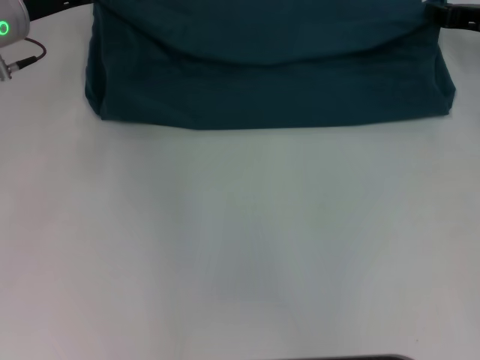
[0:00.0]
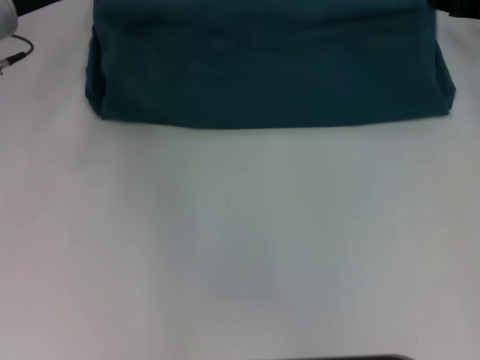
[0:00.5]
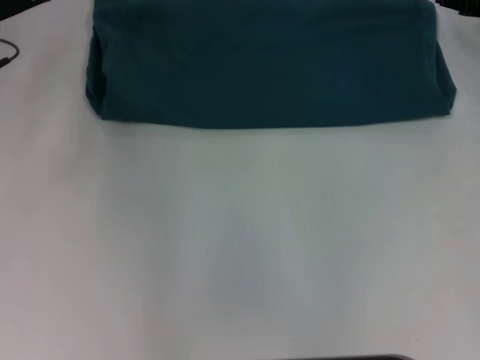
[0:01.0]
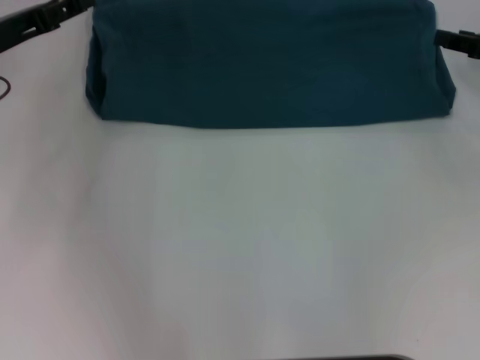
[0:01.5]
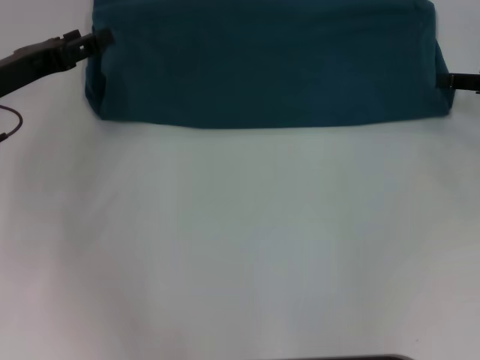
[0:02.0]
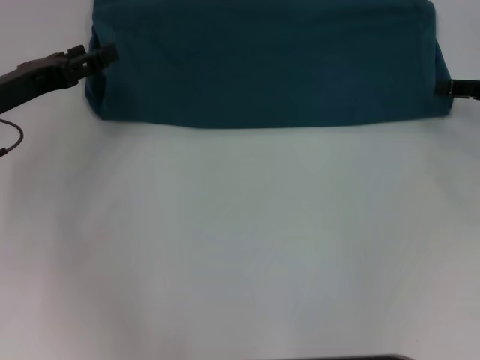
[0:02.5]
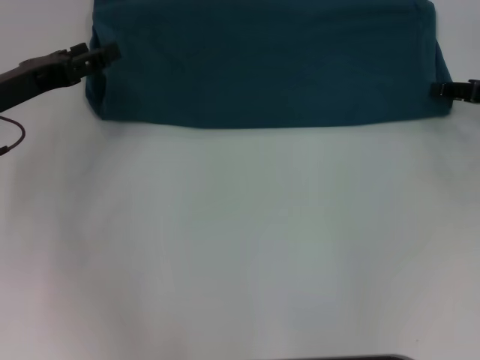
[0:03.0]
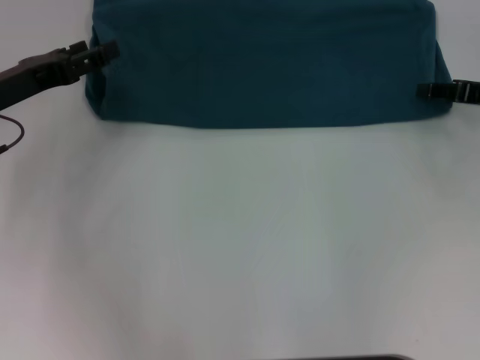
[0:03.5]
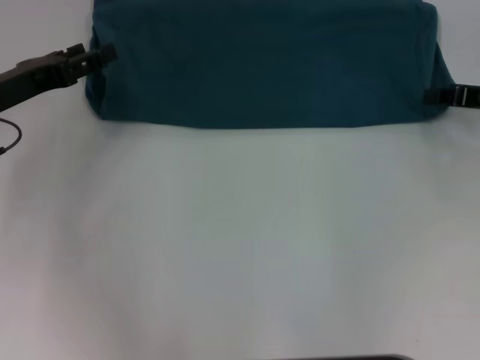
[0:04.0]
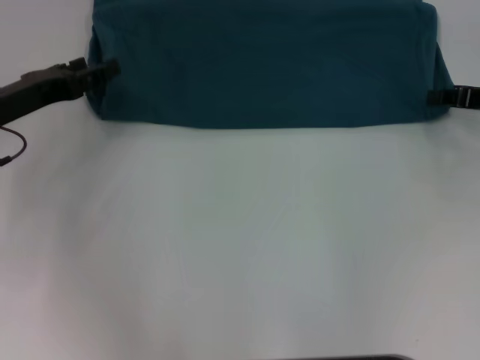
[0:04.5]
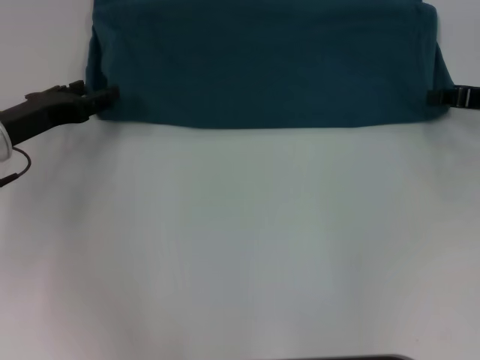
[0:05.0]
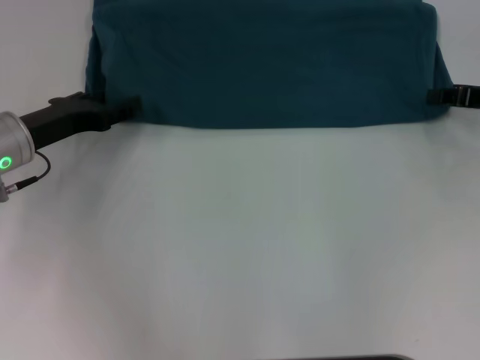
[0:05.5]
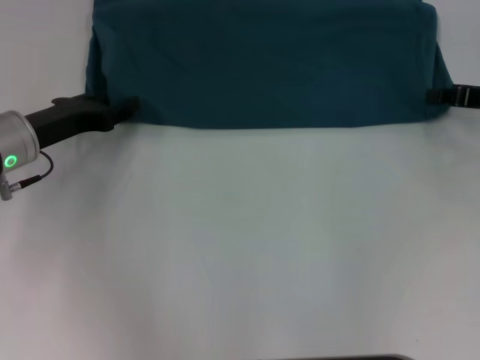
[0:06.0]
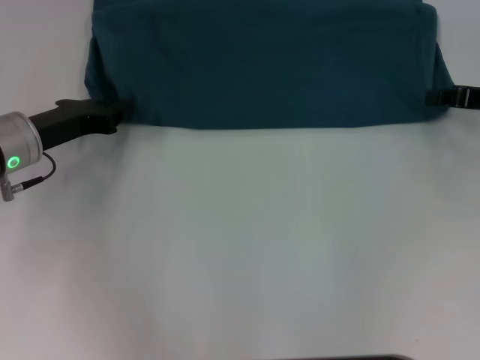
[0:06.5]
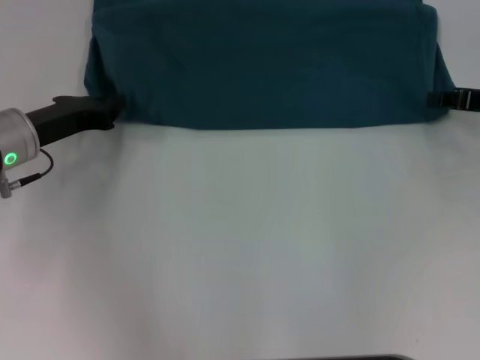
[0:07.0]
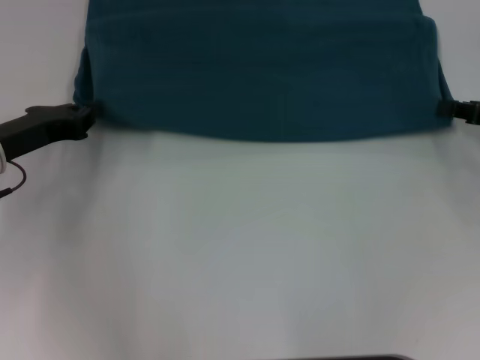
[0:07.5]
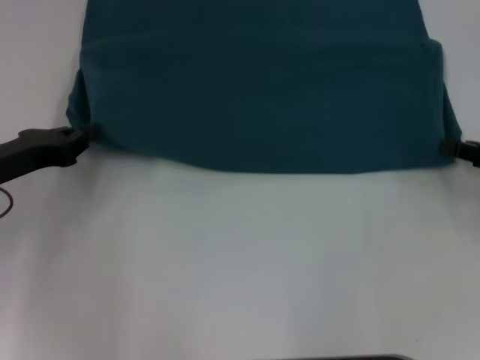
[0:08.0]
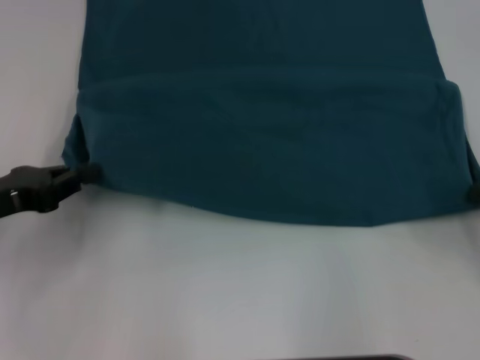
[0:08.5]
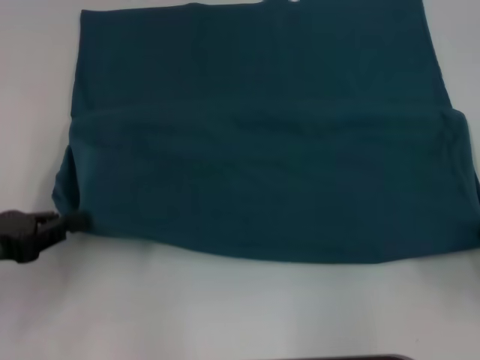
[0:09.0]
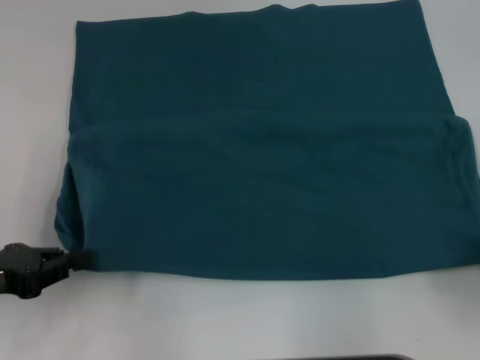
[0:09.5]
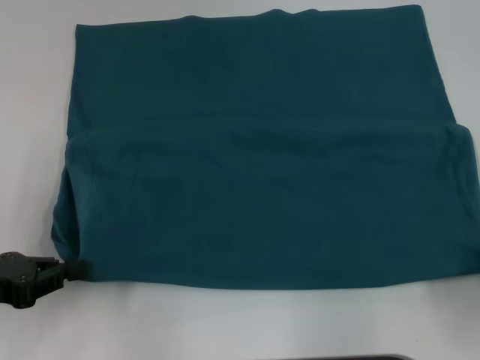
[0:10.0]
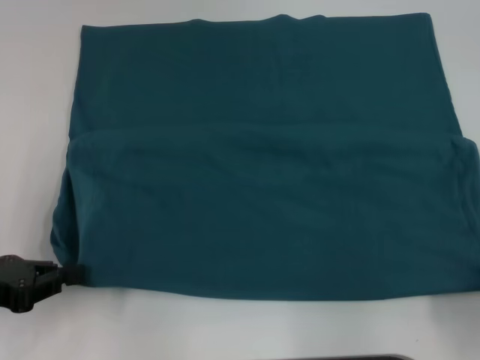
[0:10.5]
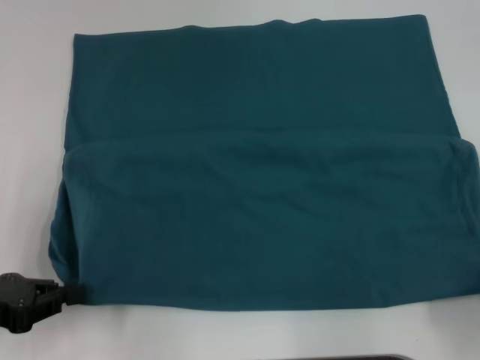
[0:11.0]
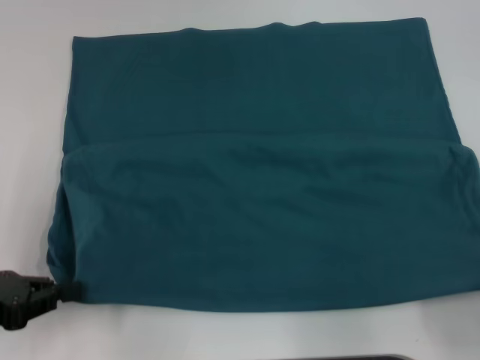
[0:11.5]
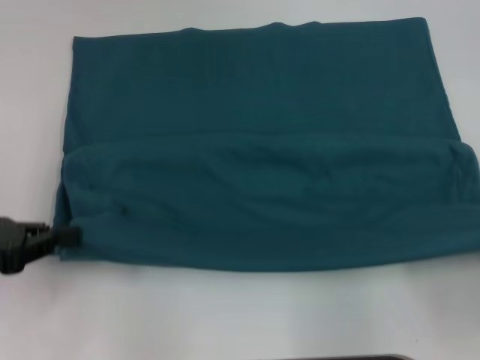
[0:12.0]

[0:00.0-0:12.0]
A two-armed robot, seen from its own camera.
Step, 1.5 to 11.0 s: Pull the clothes with your left hand.
Step, 1.5 to 11.0 s: Pull the clothes with your right hand.
0.0 to 2.0 s: The two grippers go about 10 cm backward. The right gripper opens, while the left gripper opens up.
2.0 to 4.0 s: The grippers make only small movements.
4.0 to 6.0 s: The left gripper ends up roughly 5 cm from where it was.
6.0 to 8.0 s: Both grippers move backward, about 5 cm. The left gripper closes.
8.0 to 10.0 s: The right gripper is displaced backward by approximately 15 cm; the left gripper shifts some 10 cm backward.
10.0 to 12.0 s: The grippers move only a little.

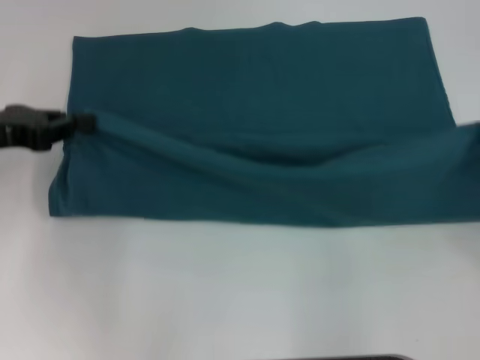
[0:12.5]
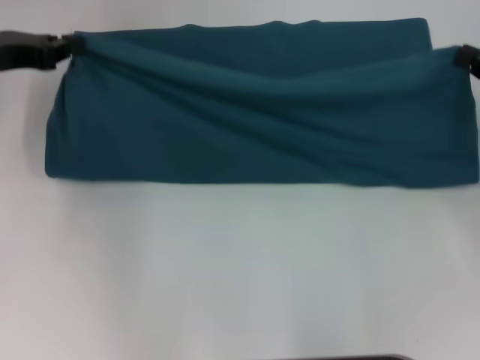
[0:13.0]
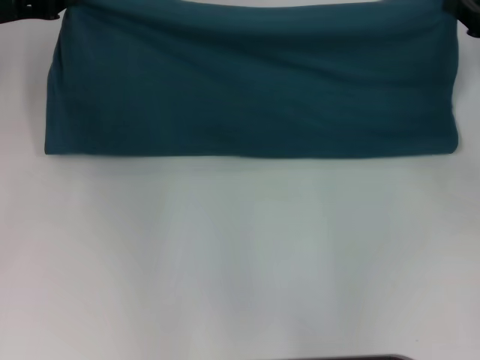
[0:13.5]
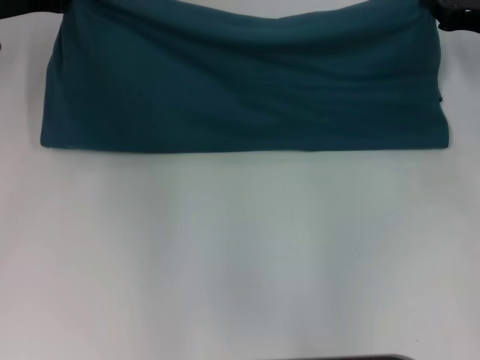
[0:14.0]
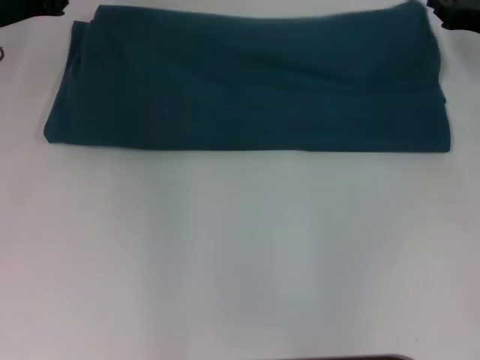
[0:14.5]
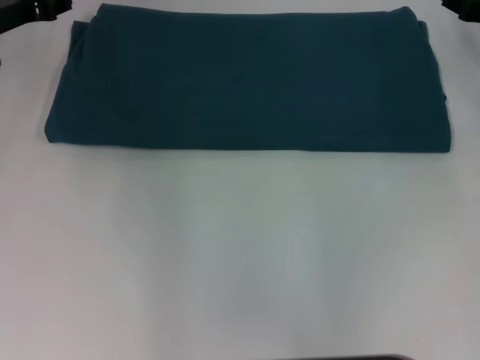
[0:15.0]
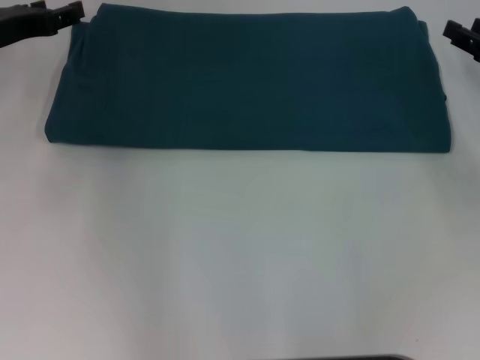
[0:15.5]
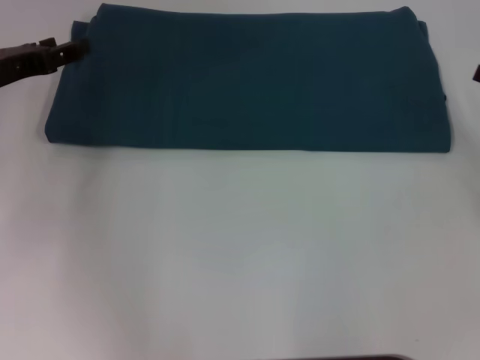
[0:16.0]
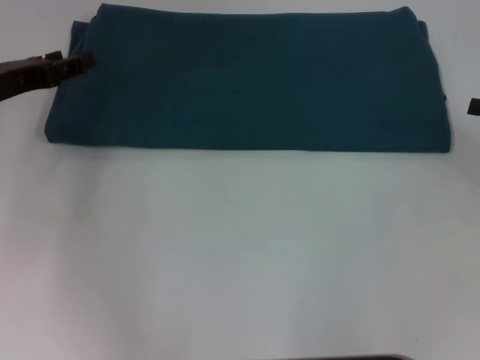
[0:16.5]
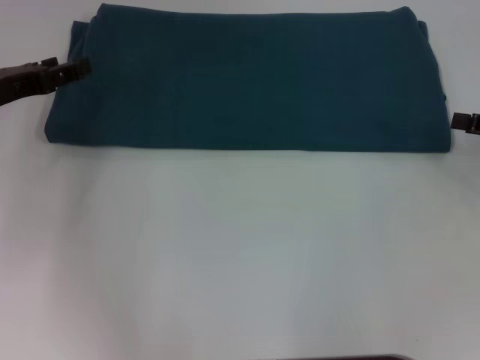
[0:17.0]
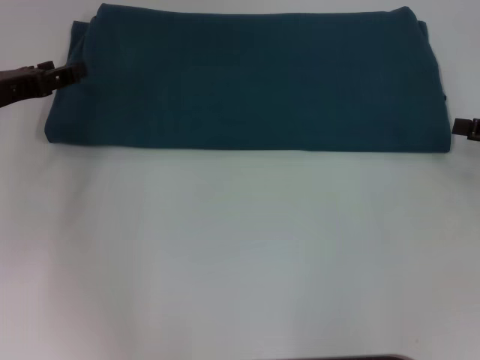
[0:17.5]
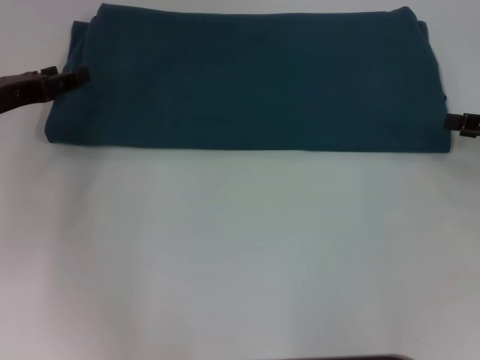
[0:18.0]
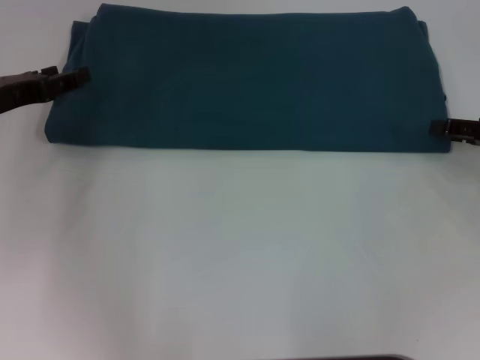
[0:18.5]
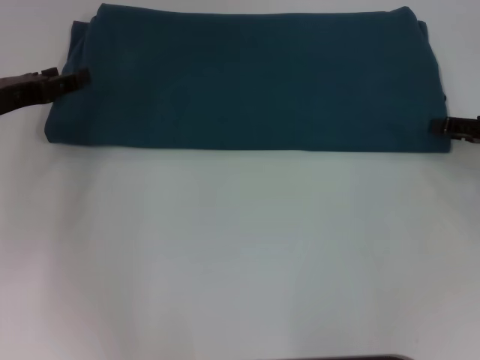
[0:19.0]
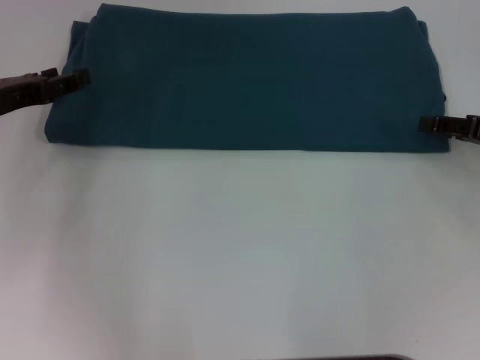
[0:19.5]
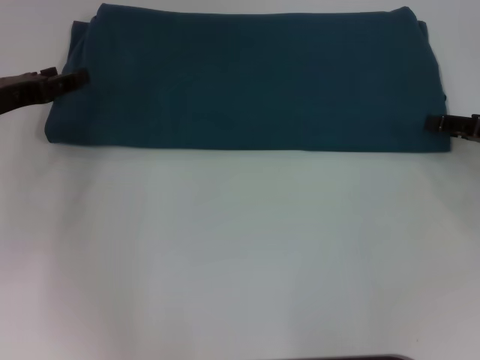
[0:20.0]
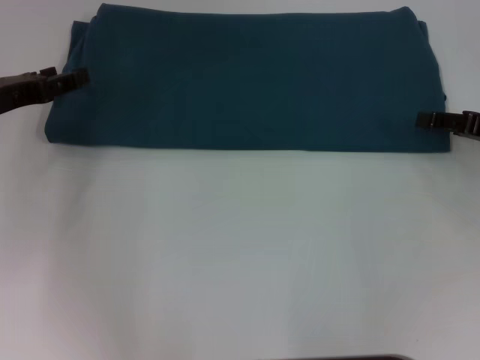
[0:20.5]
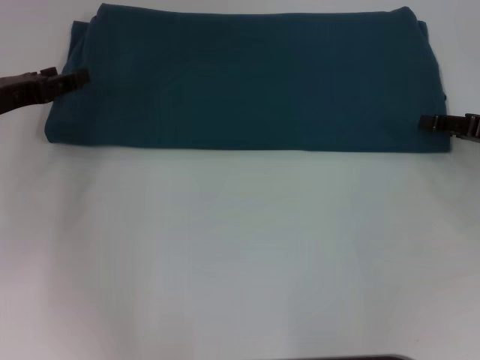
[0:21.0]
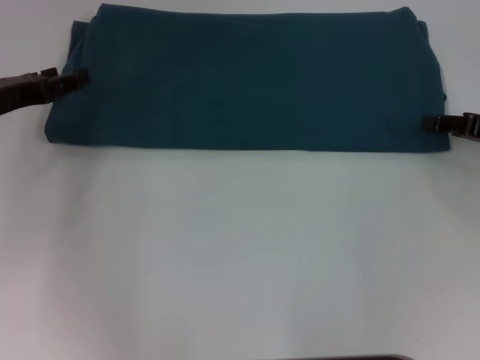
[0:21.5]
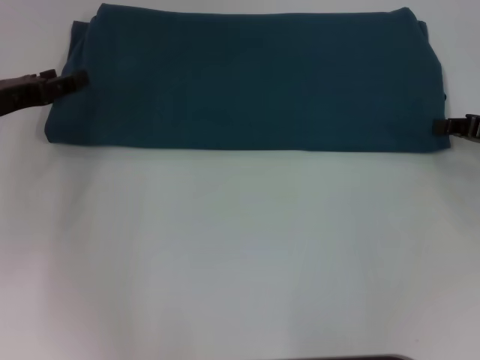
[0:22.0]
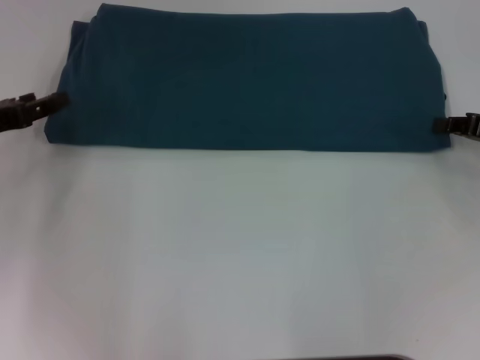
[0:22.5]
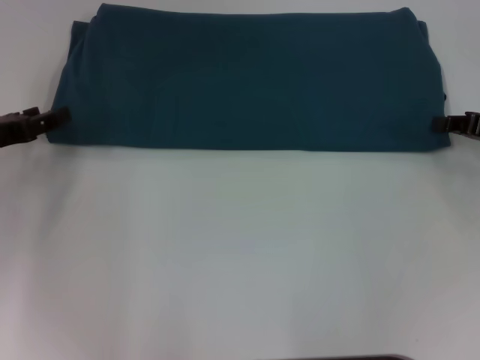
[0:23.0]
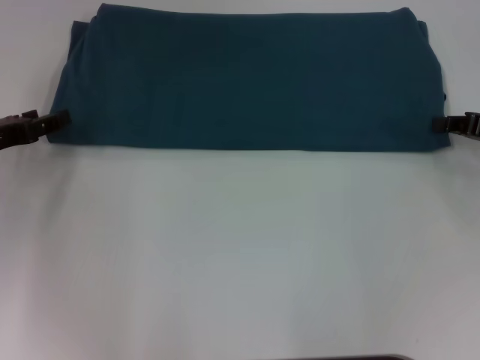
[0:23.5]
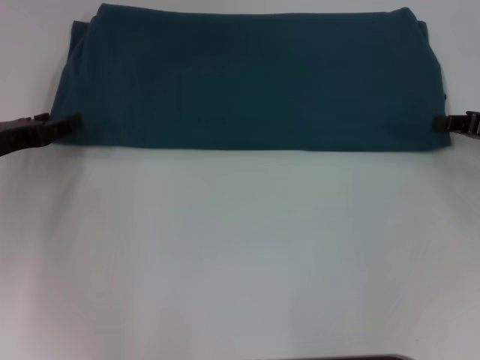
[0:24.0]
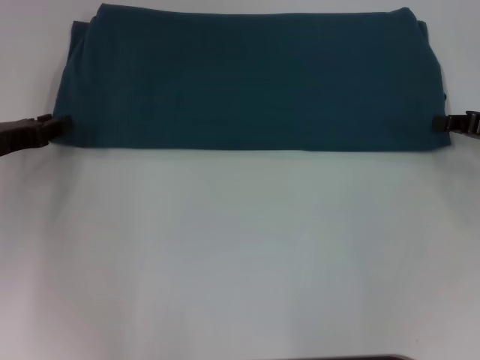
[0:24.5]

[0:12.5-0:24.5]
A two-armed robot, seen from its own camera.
Step, 12.5 to 14.5 s: Fold the clothes to the left.
Step, 12.5 to 14.5 s: Fold the clothes to the right.
12.5 to 14.5 s: The grippers both shift forward by some 15 cm.
14.5 to 16.5 s: The right gripper goes about 15 cm backward and to the right, and opens its fingers. The left gripper shifts about 10 cm backward, and opens.
16.5 to 18.5 s: There are only small adjustments of the grippers.
22.5 to 24.5 s: The grippers move only a little.

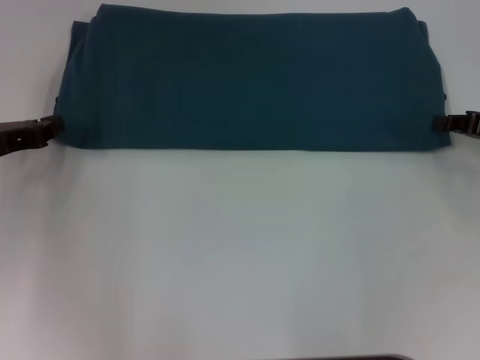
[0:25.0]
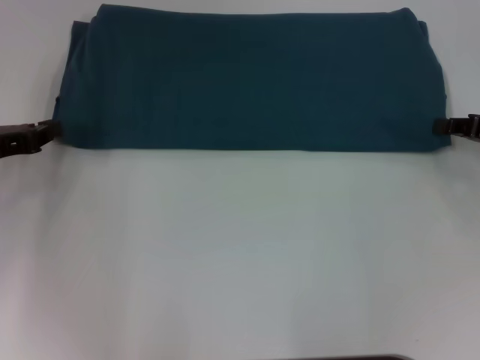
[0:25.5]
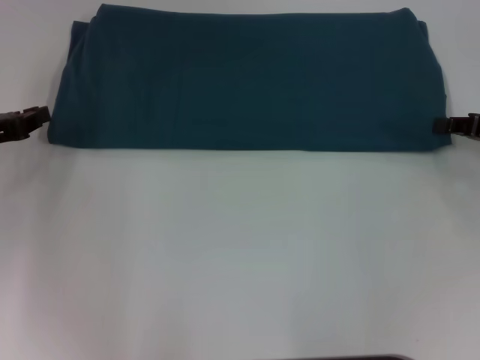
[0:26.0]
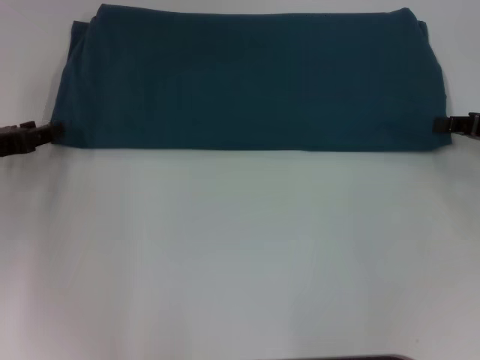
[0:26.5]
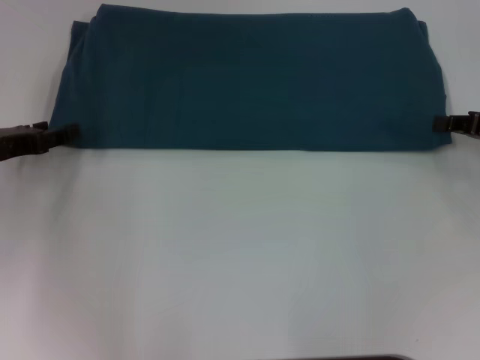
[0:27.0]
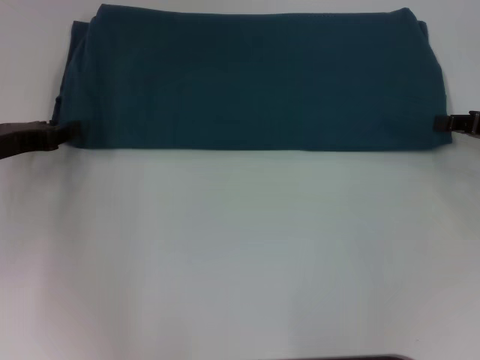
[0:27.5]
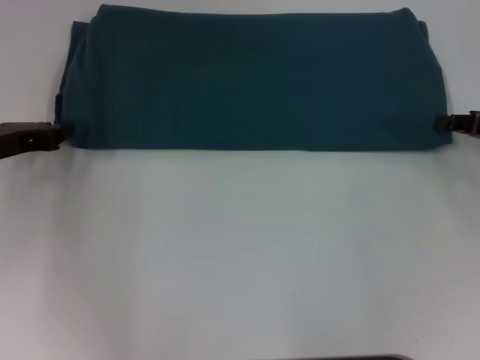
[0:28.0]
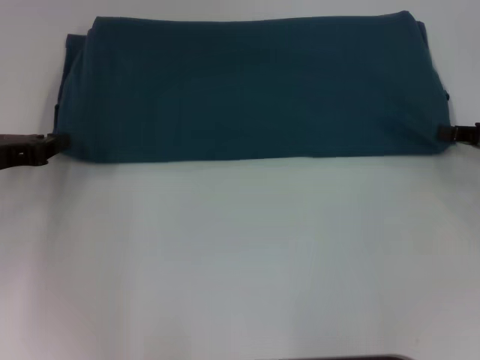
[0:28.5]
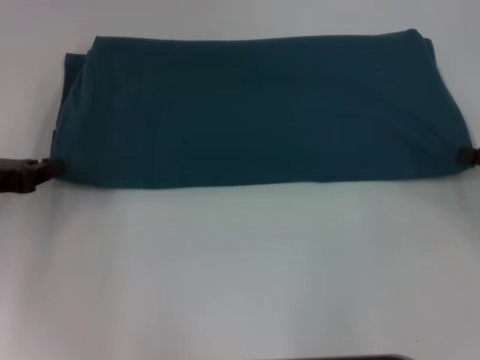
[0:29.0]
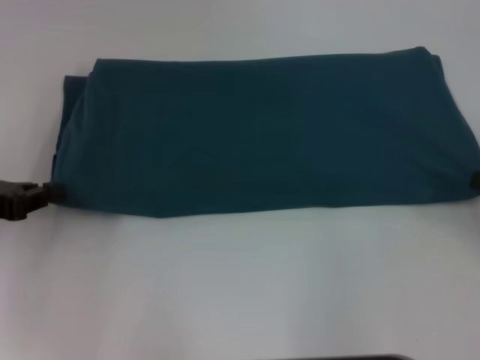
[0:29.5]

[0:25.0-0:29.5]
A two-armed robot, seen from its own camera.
25.0 to 27.0 s: The left gripper opens up.
27.0 to 29.5 s: The right gripper moves backward, roughly 10 cm, while the left gripper moves backward, about 5 cm, and closes up.
